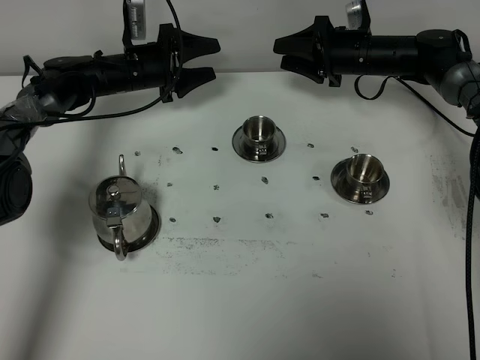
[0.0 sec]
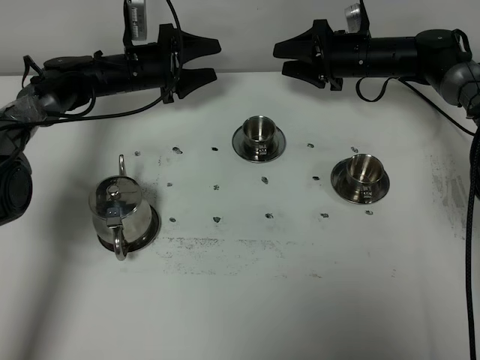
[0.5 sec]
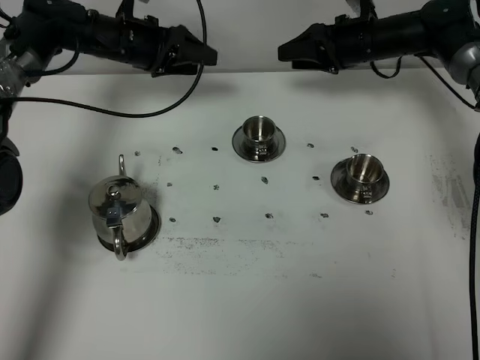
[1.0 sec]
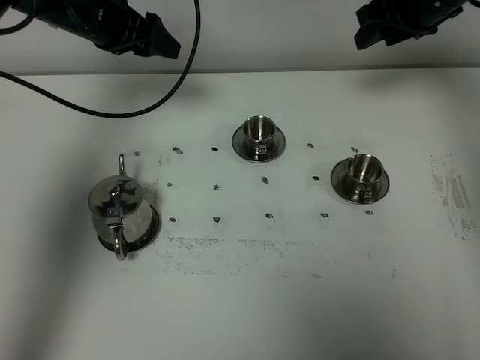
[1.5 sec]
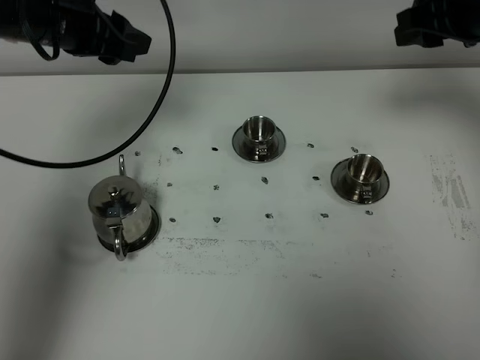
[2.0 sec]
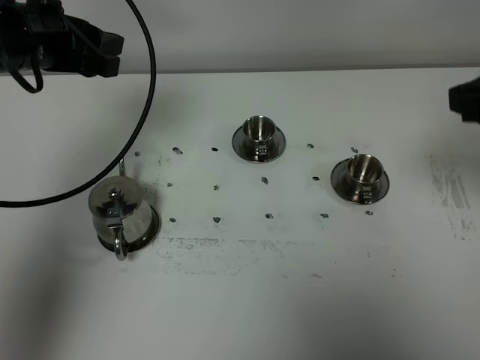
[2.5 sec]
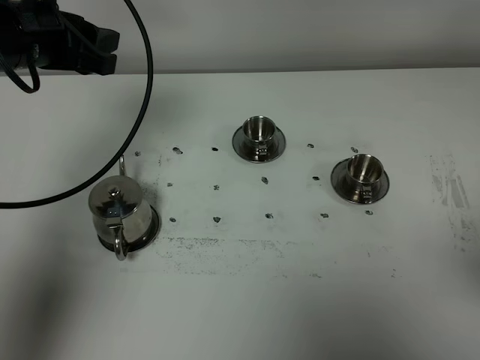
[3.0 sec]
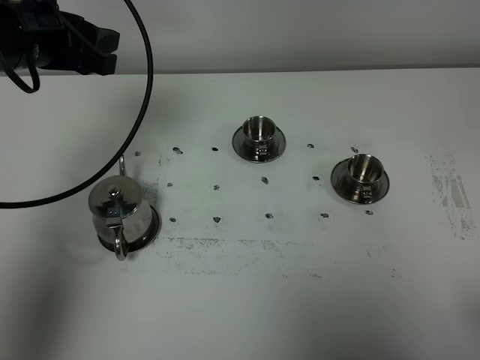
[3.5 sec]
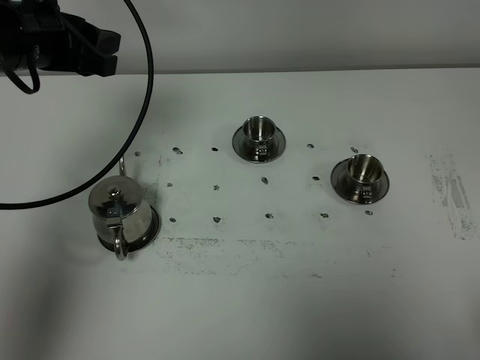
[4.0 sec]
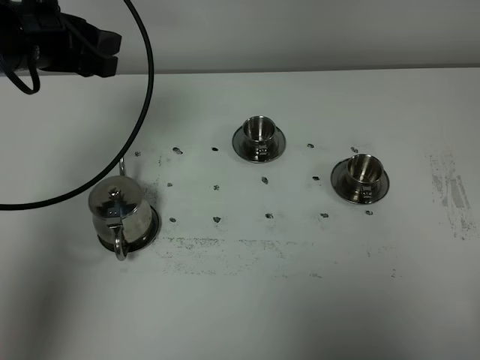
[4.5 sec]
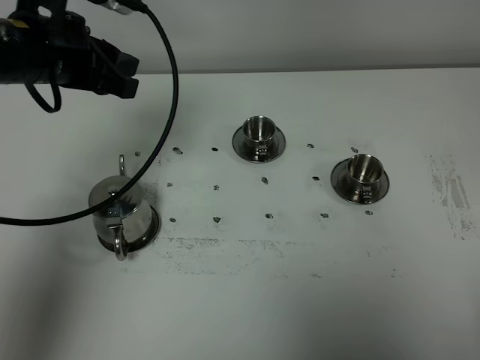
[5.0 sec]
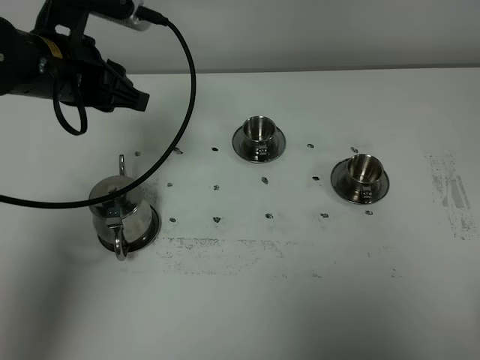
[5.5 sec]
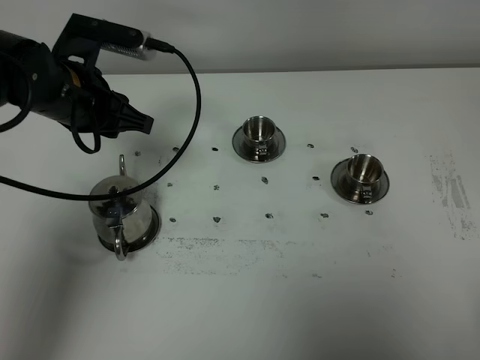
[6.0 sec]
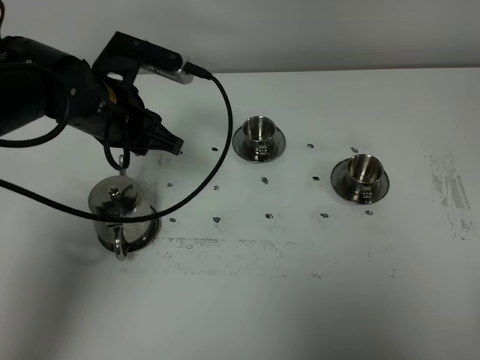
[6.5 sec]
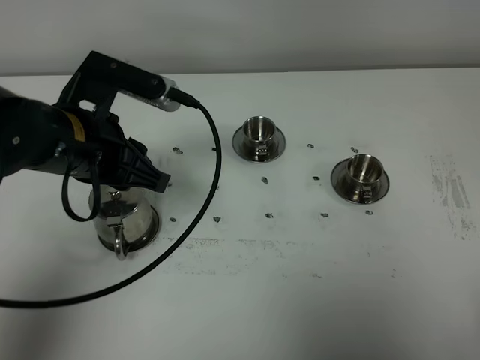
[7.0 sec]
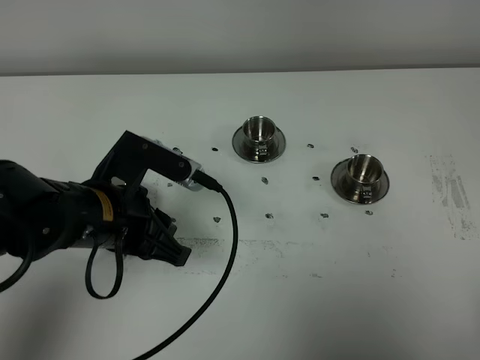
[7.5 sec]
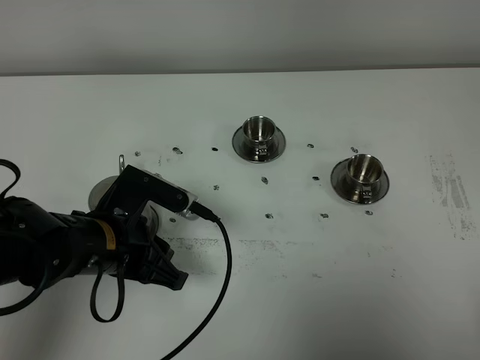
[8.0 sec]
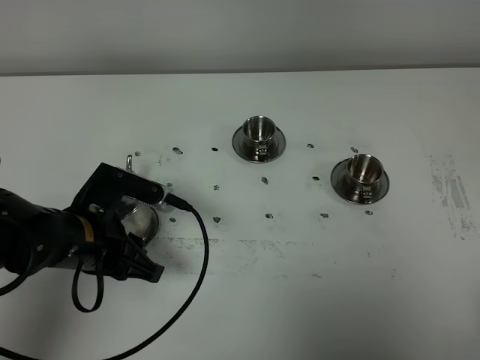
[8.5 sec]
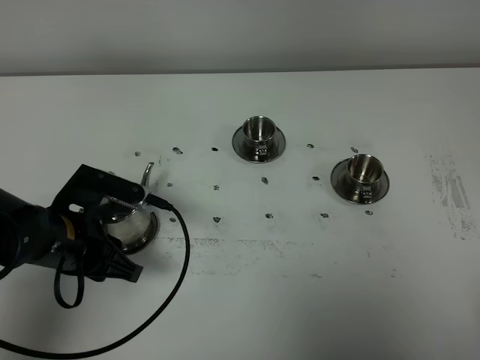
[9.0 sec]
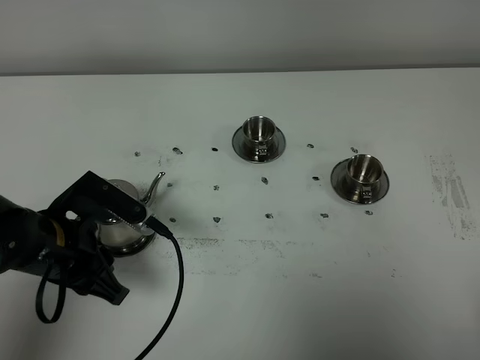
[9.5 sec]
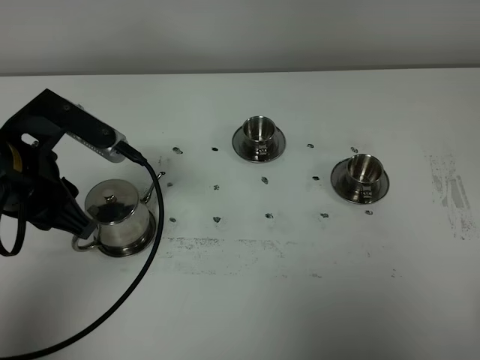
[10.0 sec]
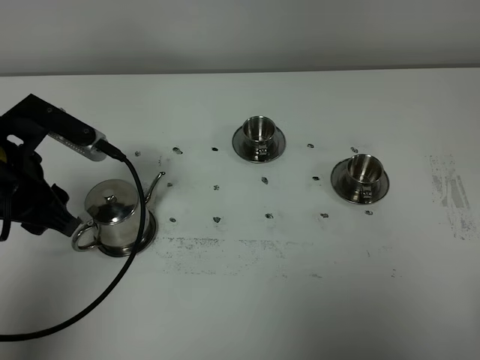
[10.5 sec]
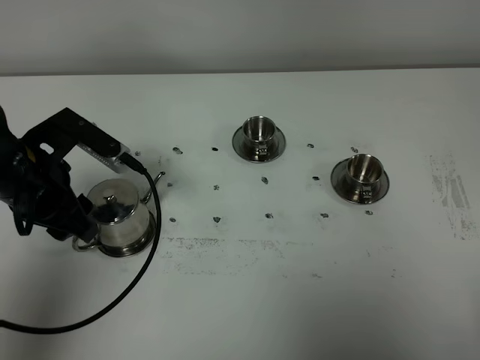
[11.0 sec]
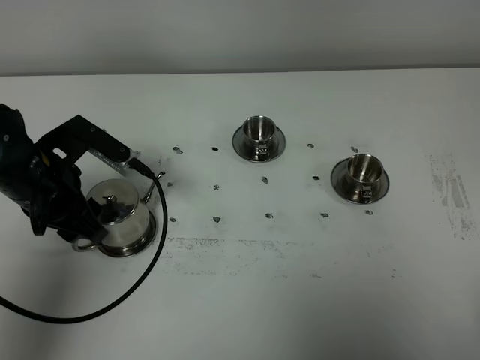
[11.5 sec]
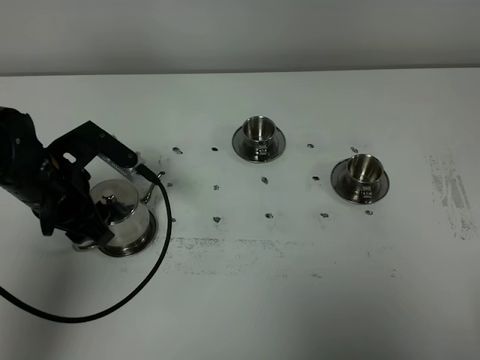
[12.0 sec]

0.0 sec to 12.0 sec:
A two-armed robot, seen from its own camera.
Task of the whole recording: grasp the stainless steel teapot and pour the tea into the two stainless steel teacups one by one, put the stainless steel teapot back in its original place.
0.0 sec to 2.0 sec: The grippers both shift upward and backward by roughly 25 cm.
2.0 sec to 4.0 sec: The right gripper travels backward by approximately 40 cm, and closes its fingers.
4.0 sec to 6.0 sec: The right gripper closes, while the left gripper is displaced downward by some 5 cm.
6.0 sec to 8.0 sec: The left gripper heads backward and downward, covering approximately 15 cm.
8.0 sec to 10.0 sec: The left gripper shifts approximately 10 cm upward and to the left.
10.0 sec to 12.0 sec: The left gripper goes about 10 cm downward and forward, and opens its fingers.

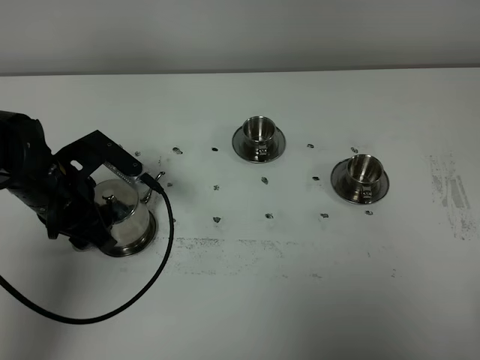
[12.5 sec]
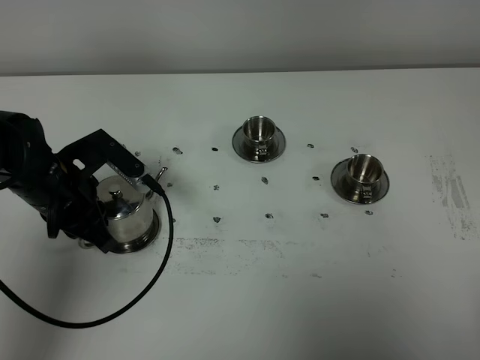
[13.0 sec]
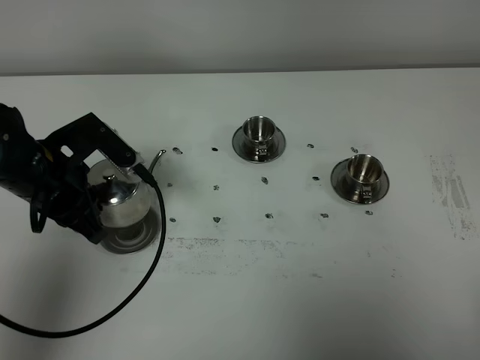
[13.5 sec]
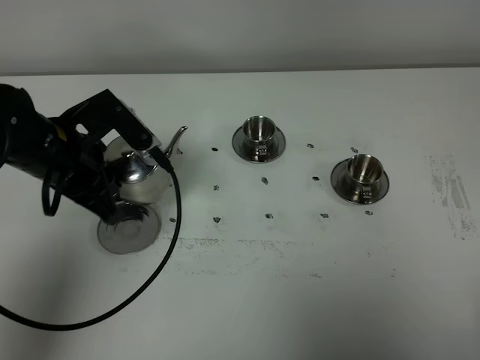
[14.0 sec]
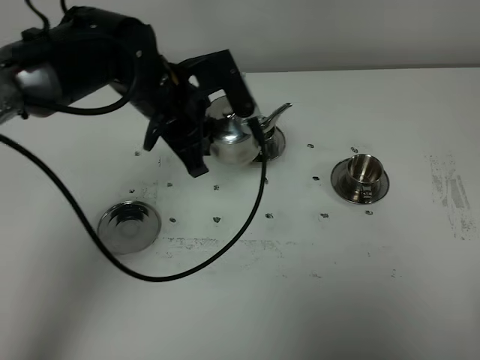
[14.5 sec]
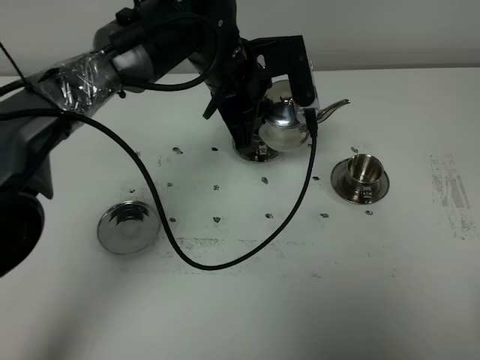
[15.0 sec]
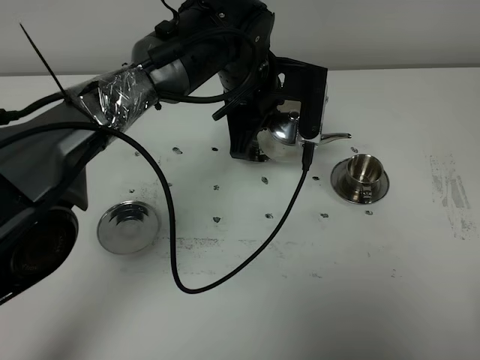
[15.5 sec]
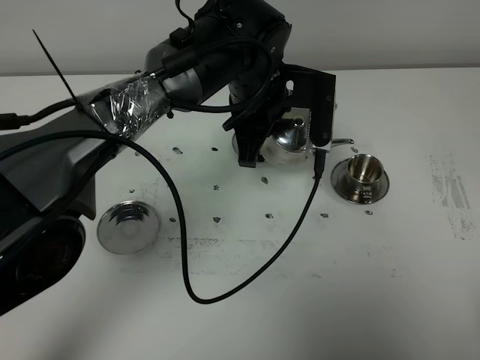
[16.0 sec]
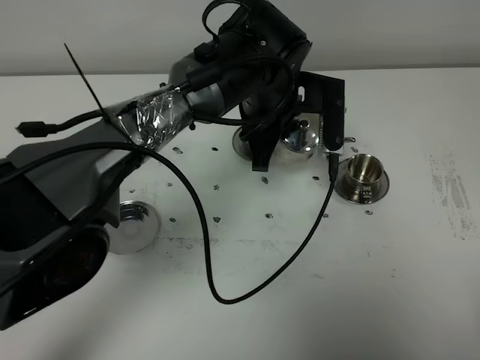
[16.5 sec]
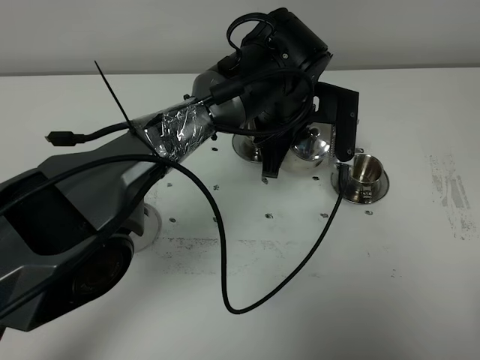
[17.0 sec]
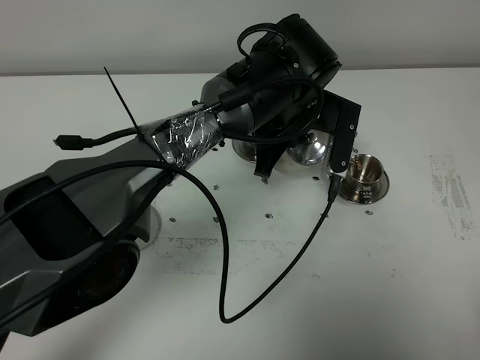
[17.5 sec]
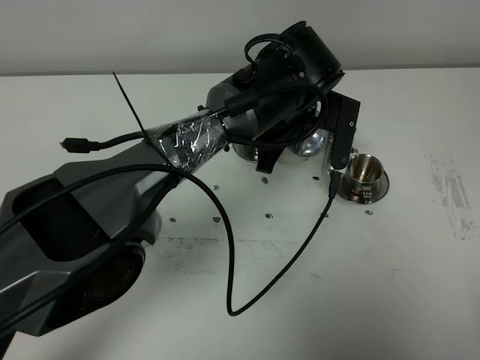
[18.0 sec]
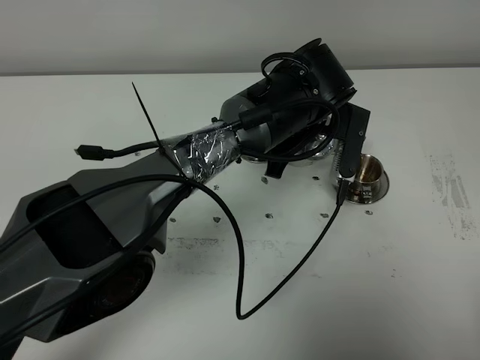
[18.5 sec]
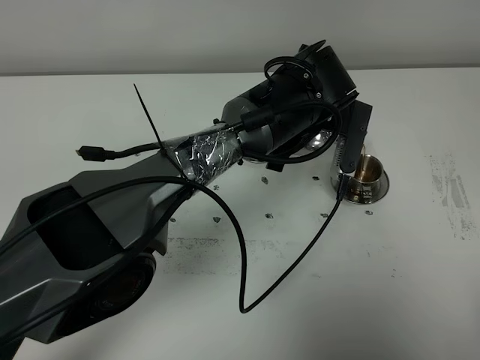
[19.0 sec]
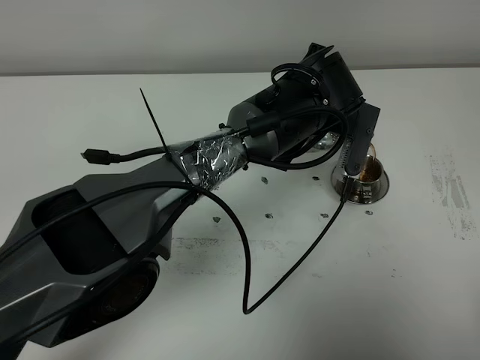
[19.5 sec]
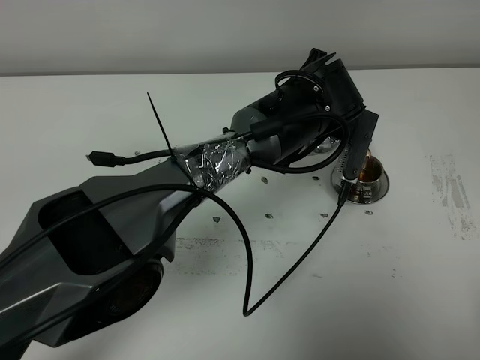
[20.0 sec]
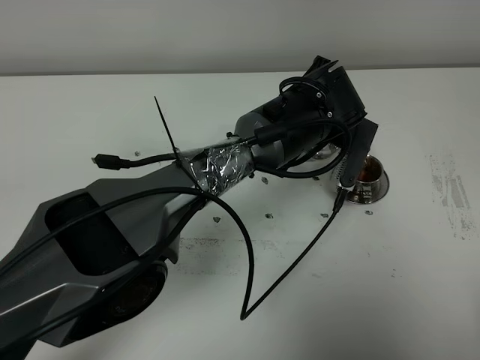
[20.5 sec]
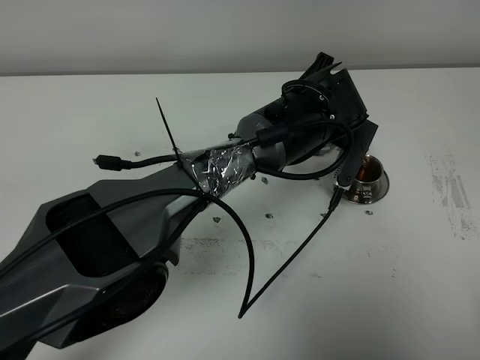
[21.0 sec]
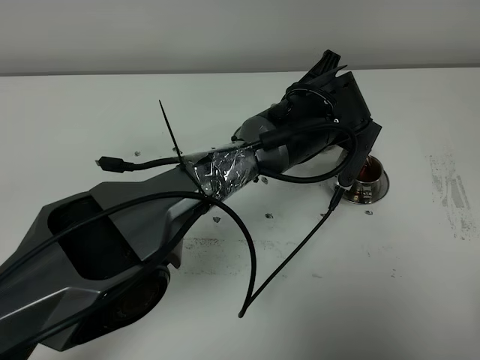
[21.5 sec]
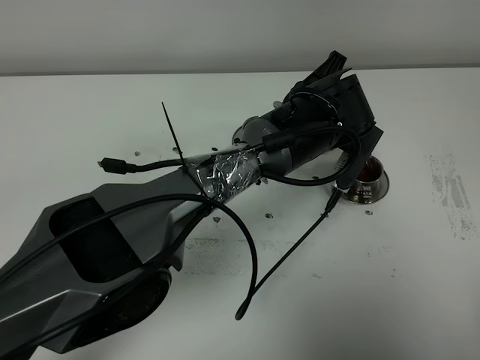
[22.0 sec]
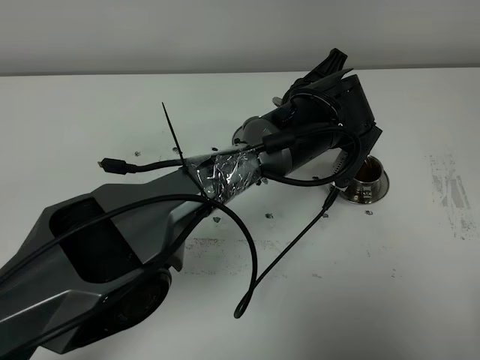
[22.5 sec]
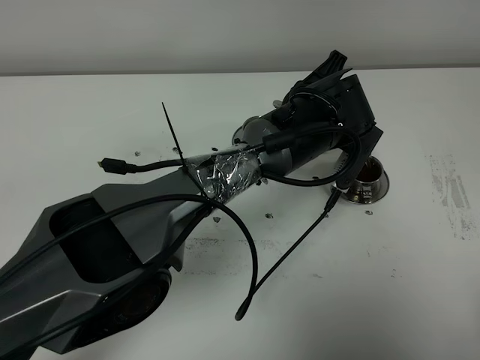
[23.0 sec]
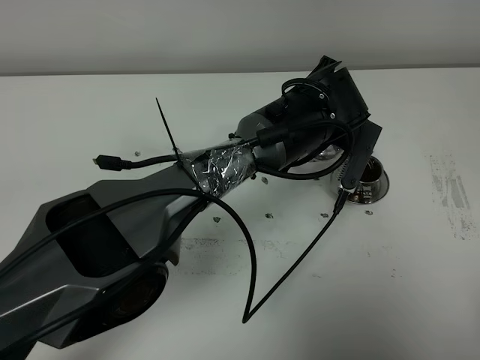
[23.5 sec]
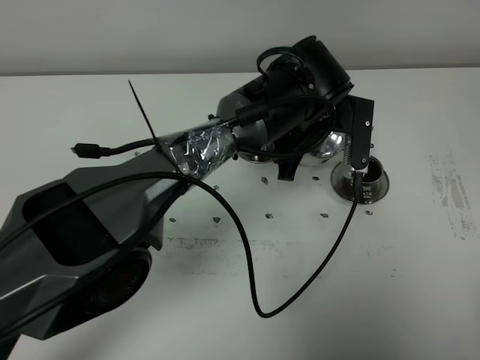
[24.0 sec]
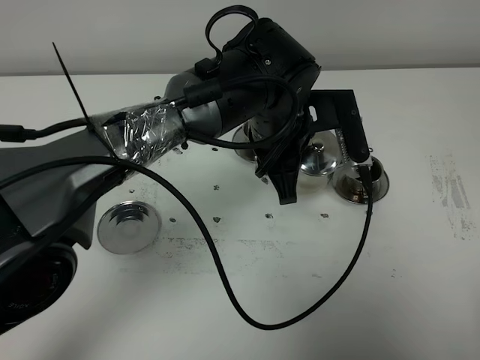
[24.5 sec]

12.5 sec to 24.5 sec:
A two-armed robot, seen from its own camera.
Task of the whole recording: grasp the stainless steel teapot and pour the tea into the two stainless steel teacups one by one, put the stainless steel teapot back in its original place.
Step, 14.0 sec to 23.5 sec: Pour tea into the teacup with the left gripper.
12.5 sec to 14.5 sec: The left gripper moves to the right, upward and forward, approximately 15 cm, and closes its fingers.
14.5 sec to 16.5 sec: The left gripper moves to the right, roughly 10 cm.
18.5 sec to 20.5 sec: The grippers make only small movements.
20.5 sec to 22.5 sec: There are only small adjustments of the grippers.
22.5 sec to 24.5 sec: The left gripper heads to the left, covering approximately 5 cm.

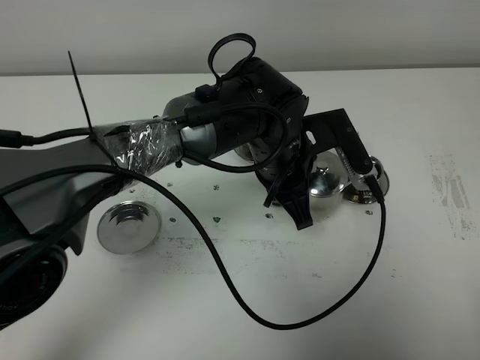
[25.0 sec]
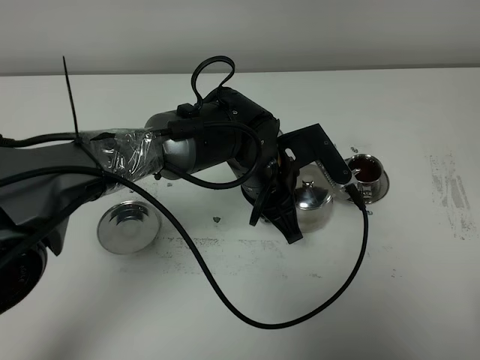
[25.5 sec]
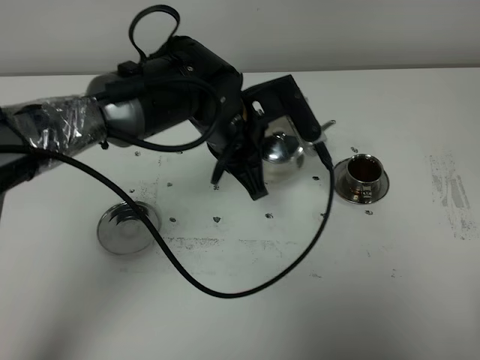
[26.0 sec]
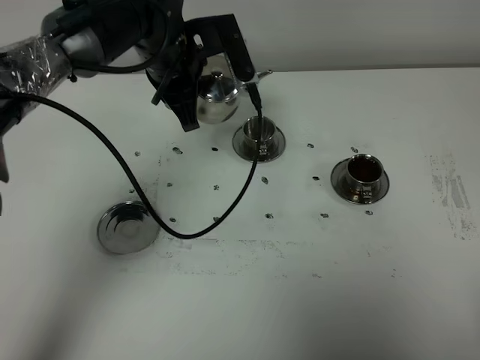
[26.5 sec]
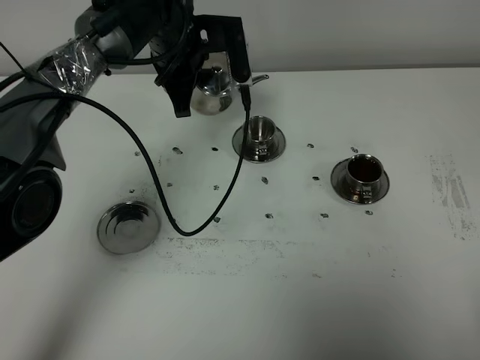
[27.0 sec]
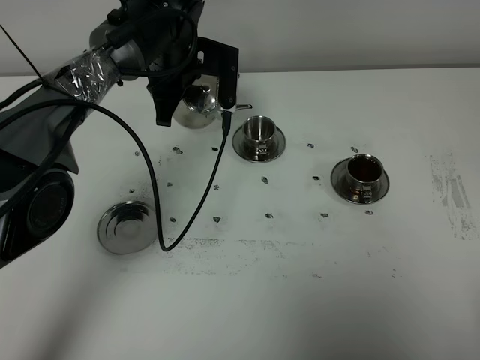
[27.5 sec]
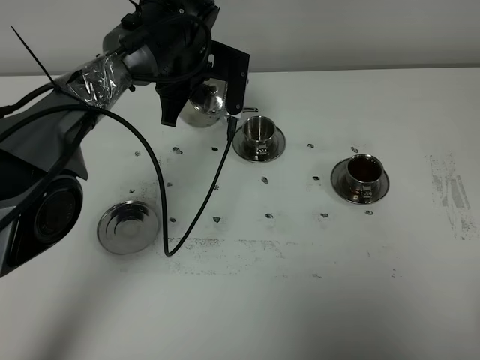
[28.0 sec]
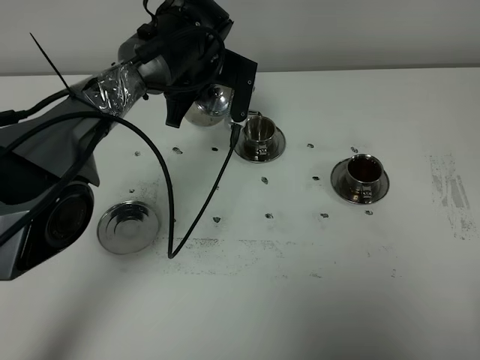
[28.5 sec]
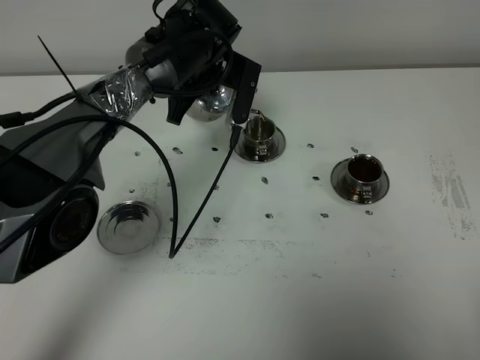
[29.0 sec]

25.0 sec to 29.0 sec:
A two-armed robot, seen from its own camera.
Task of the whole recording: grasp the stainless steel teapot and pour the tea into the two stainless steel teacups one by one, put the stainless steel teapot back in its original place.
25.0 sec to 27.0 sec: The left gripper moves forward and to the left, roughly 20 cm.
